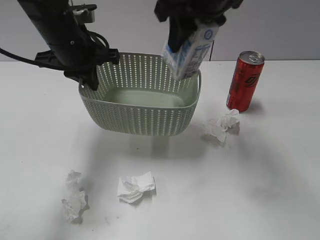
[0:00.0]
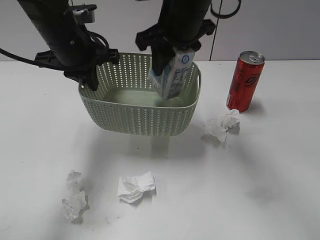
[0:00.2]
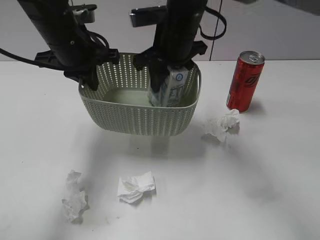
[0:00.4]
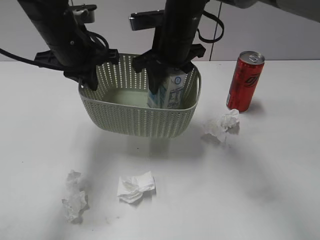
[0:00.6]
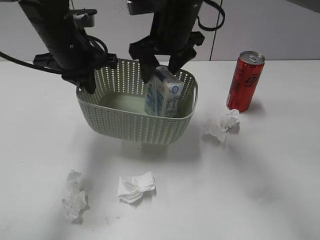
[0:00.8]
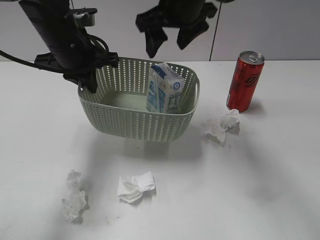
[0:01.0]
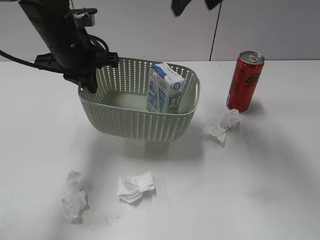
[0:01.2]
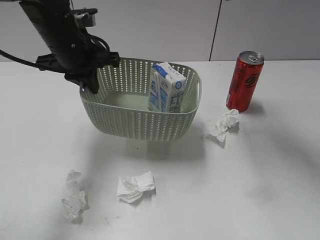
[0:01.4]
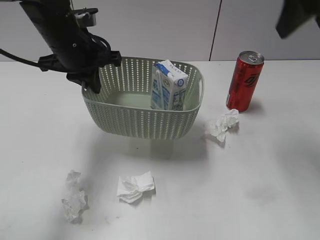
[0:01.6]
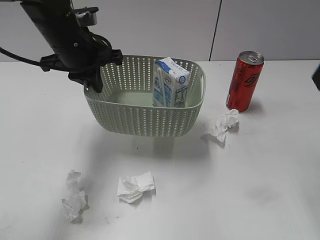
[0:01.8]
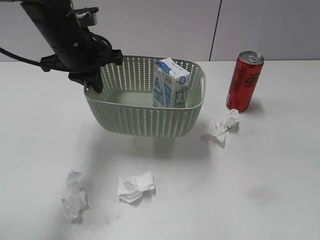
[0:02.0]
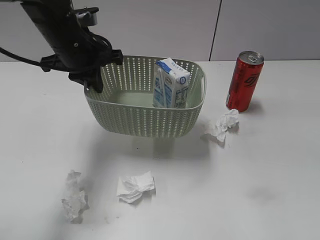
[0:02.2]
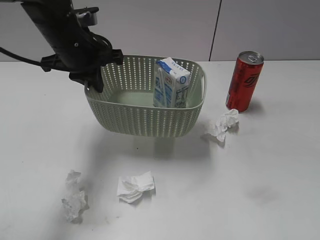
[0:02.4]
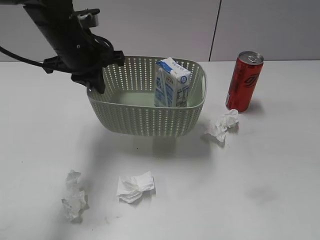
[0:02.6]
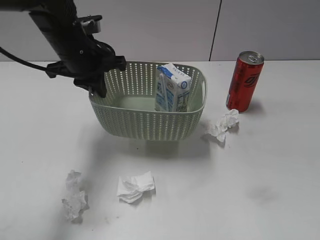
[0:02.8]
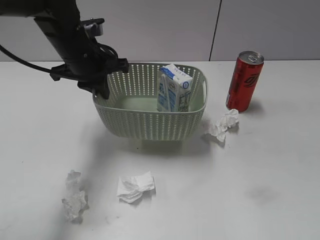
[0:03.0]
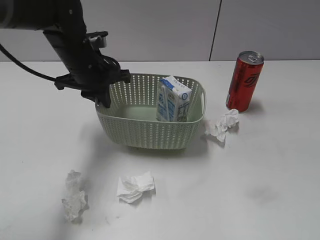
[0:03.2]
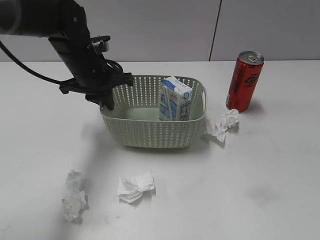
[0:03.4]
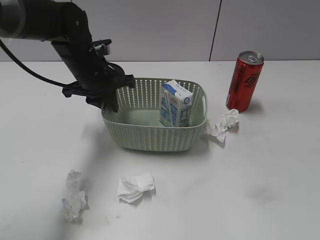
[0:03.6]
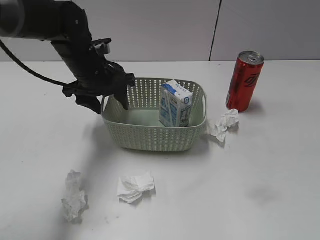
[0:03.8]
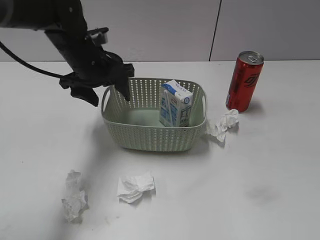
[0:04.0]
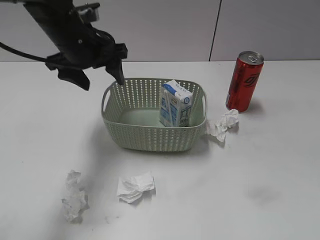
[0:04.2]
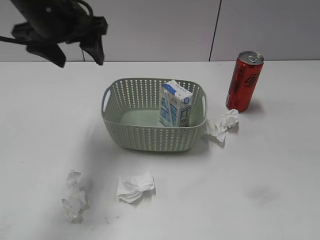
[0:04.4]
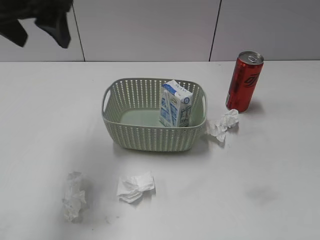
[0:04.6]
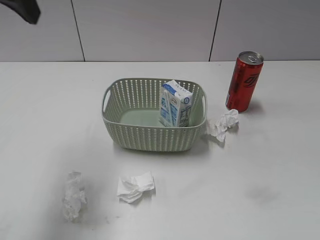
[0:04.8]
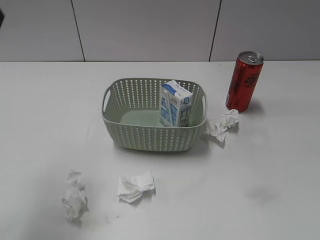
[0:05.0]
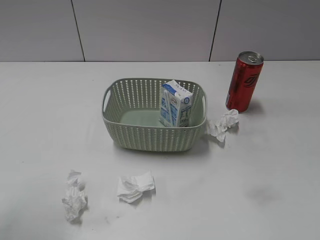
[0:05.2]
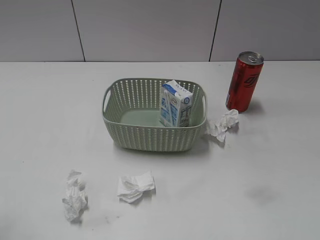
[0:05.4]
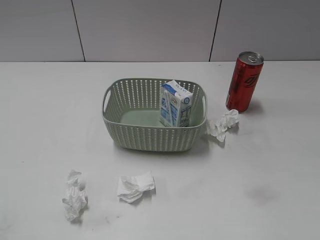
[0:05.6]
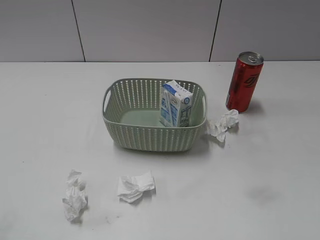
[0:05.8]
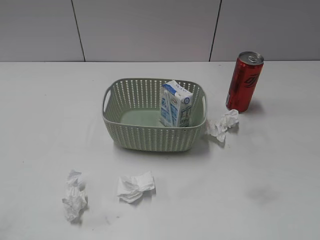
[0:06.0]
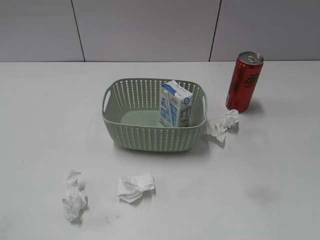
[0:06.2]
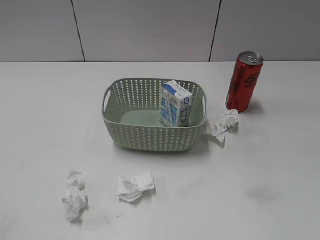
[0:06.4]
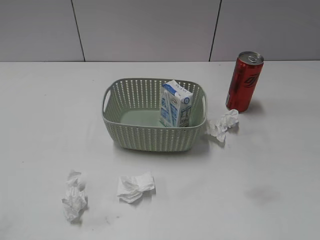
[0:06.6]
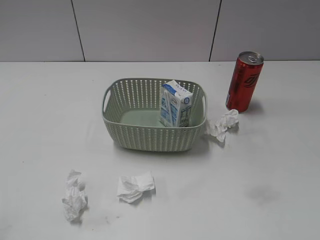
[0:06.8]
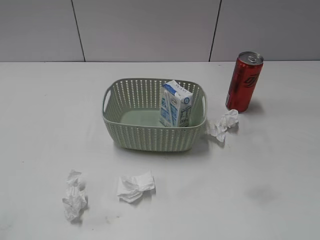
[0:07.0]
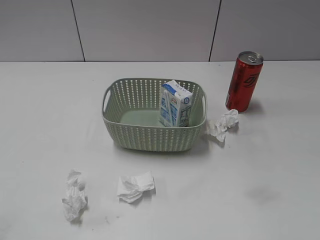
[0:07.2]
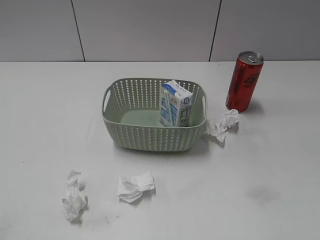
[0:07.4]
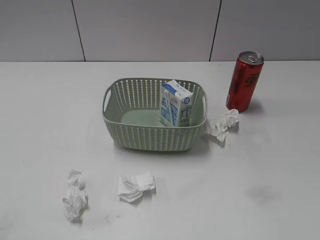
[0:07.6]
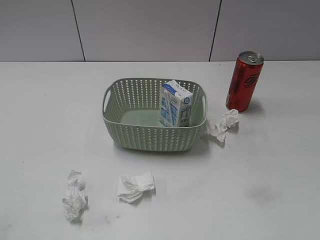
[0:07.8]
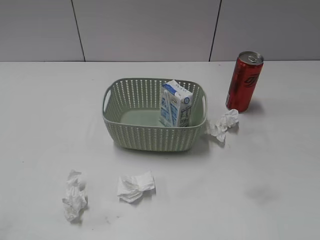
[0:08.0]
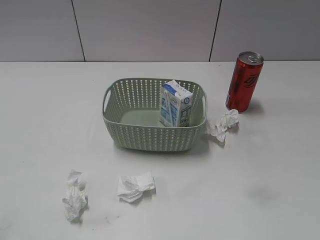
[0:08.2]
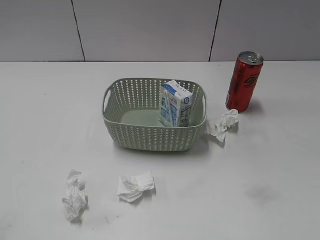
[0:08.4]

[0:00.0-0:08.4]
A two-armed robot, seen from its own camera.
Step, 1.2 to 4.2 s: Place the basket on the table with left gripper.
0.0 to 1.4 s: The right gripper shifts roughly 15 cm to the right and upward, and opens its fingers.
1.4 to 2.8 s: The right gripper heads backward and to the right, covering roughly 35 cm.
2.8 to 4.2 s: The left gripper travels downward and back again, roughly 5 cm each way, and opens its fingers.
4.2 to 5.6 s: The left gripper shifts some 35 cm backward and to the left.

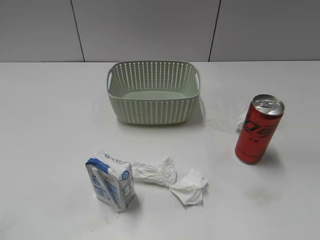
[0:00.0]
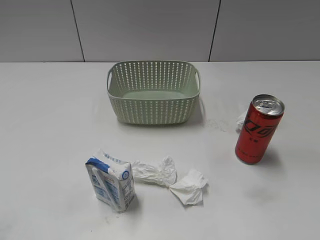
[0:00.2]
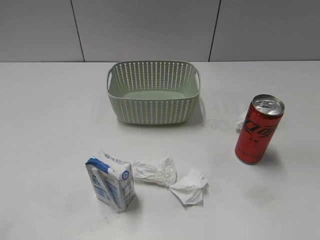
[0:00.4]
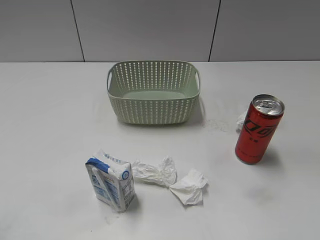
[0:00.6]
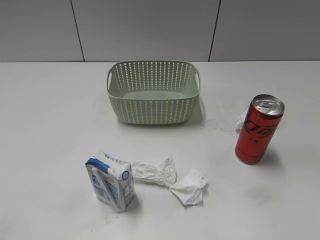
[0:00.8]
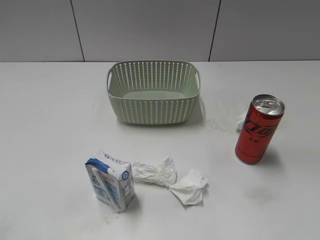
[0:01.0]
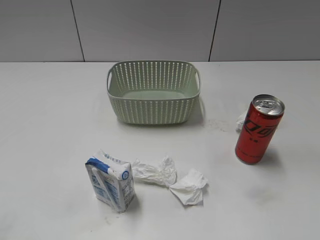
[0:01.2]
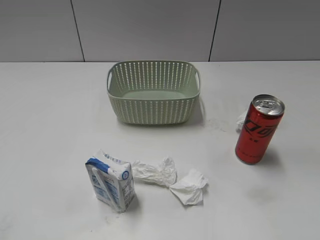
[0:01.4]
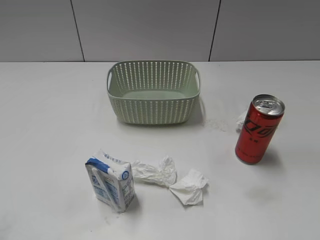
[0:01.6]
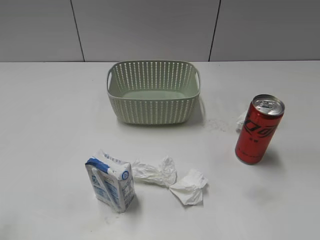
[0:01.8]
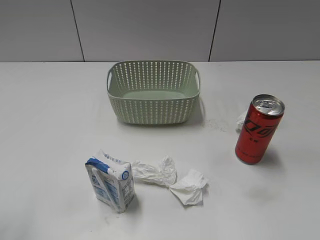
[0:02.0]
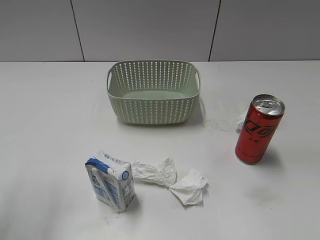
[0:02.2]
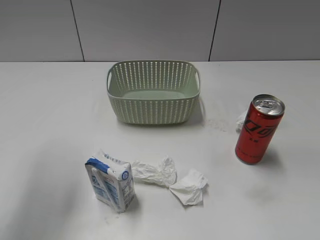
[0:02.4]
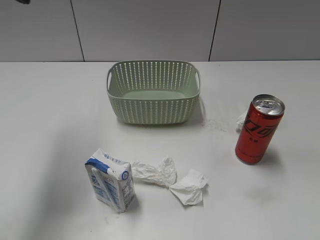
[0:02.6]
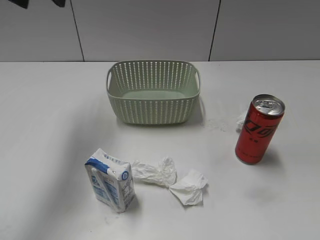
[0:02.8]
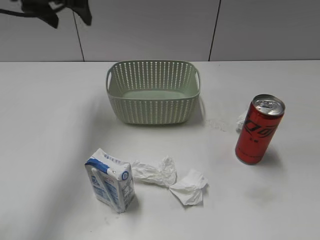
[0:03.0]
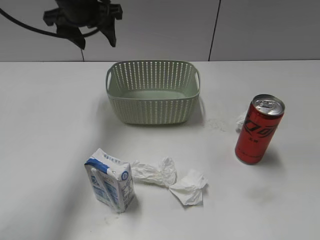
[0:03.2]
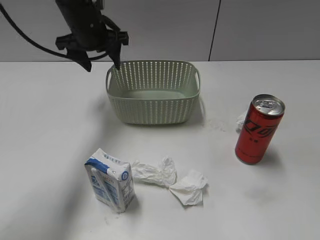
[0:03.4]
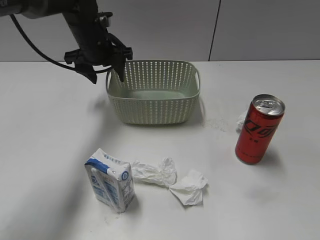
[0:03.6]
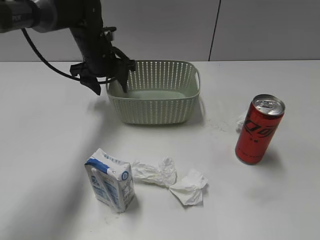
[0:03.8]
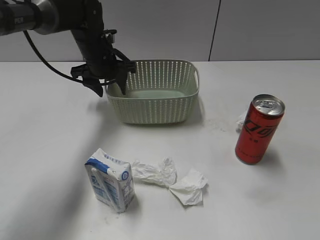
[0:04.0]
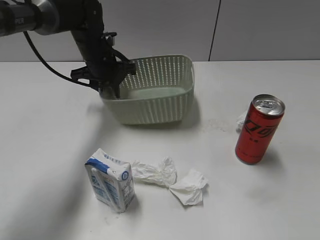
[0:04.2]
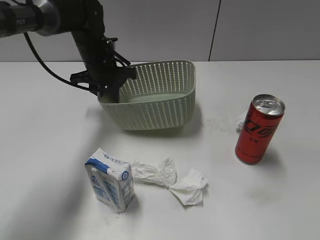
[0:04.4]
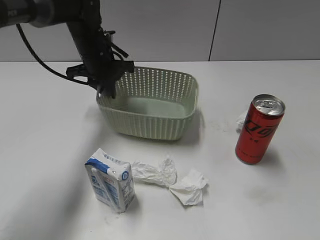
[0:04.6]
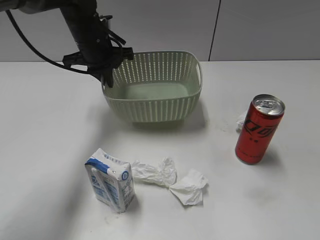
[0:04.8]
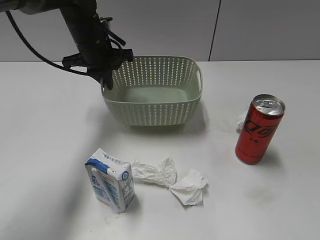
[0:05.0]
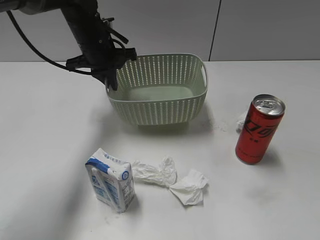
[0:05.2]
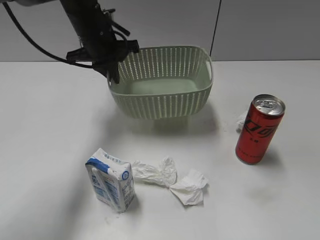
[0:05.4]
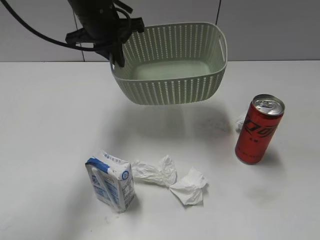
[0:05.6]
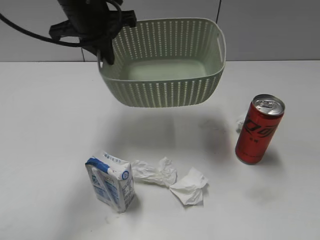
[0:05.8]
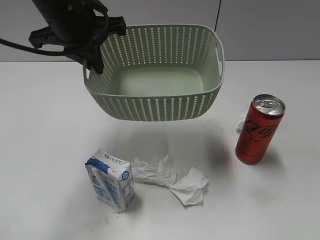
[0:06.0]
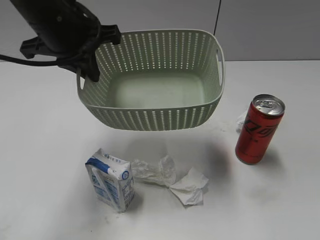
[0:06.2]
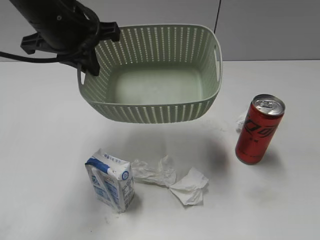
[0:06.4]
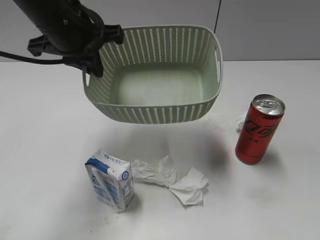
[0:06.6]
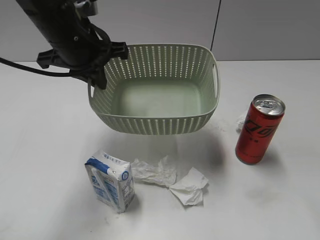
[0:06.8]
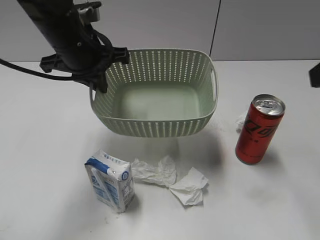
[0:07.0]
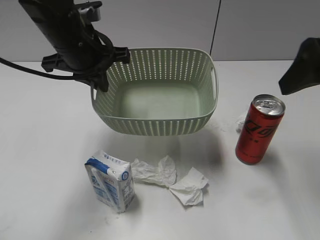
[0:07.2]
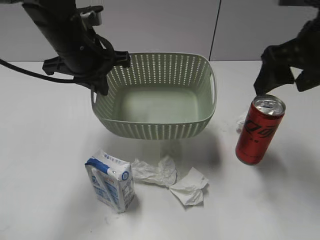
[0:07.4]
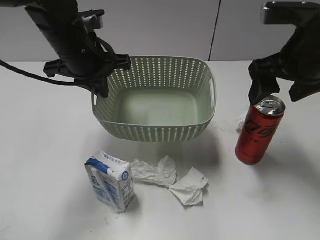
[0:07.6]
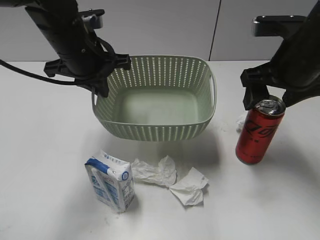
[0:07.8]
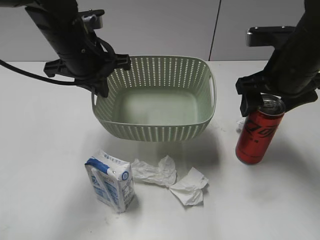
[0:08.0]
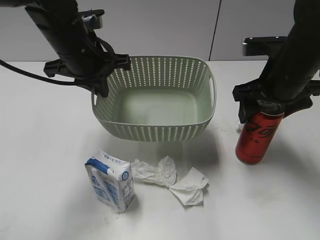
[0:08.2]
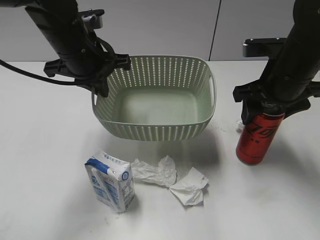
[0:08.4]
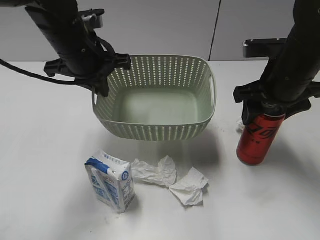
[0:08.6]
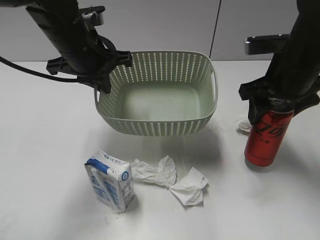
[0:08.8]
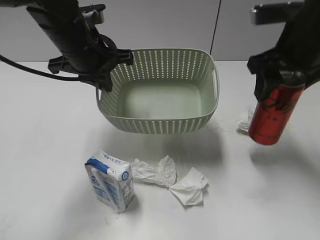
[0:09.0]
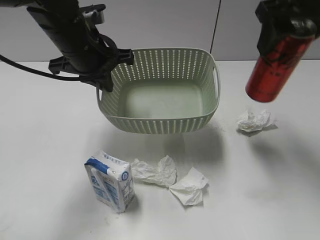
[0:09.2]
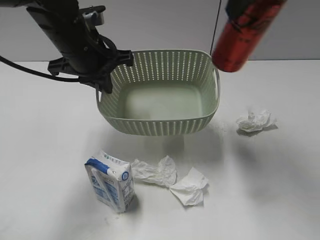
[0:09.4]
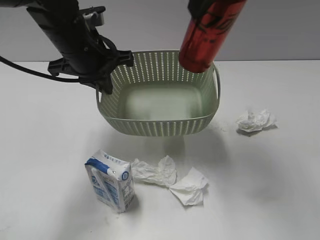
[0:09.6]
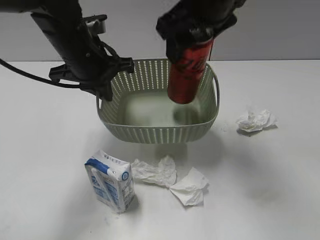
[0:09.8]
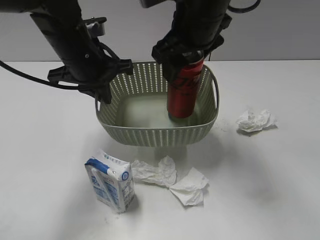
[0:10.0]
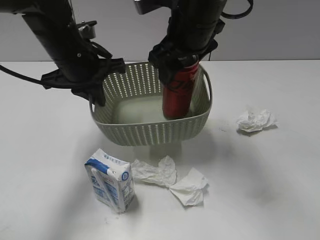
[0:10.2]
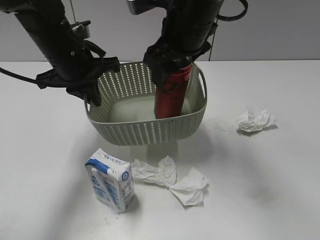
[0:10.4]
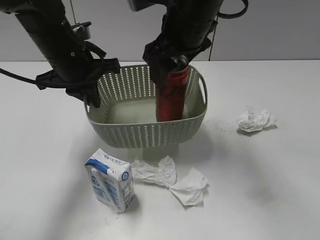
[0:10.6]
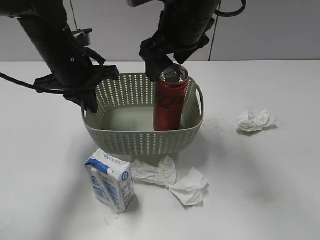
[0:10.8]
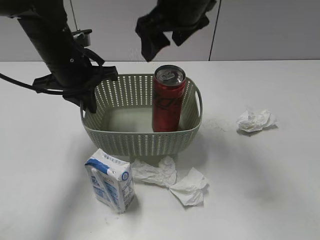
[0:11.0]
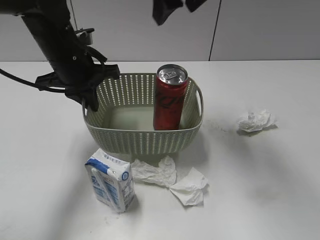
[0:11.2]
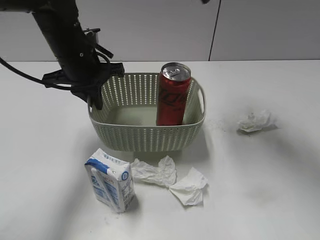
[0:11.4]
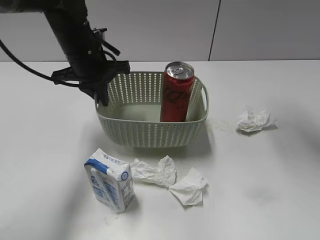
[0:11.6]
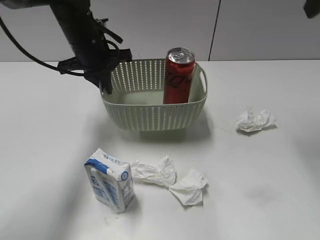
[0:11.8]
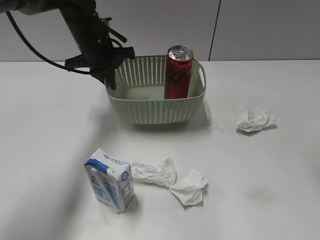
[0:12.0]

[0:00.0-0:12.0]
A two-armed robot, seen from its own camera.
Step, 2.6 to 4.6 s: Grasp the basket with left gripper.
Step, 4.8 to 6.8 s: Lift the basket with left gripper.
Step, 7.0 to 8.6 s: Grasp the cola can with right gripper.
Step, 8.8 to 10.6 s: Place the cola can in the basket with right gripper.
1.6 to 3.0 s: The left gripper goes about 40 cm forward.
3.0 to 4.4 s: The left gripper moves downward, approximately 15 cm, and closes up.
4.4 to 6.0 s: The left gripper heads upward and backward, covering some 20 cm.
6.0 to 7.6 s: The left gripper shifts about 5 cm downward. Meanwhile the right gripper goes roughly 30 cm forward, and opens up.
7.6 to 9.0 s: The right gripper goes downward and returns, roughly 5 cm each way, and closes its fingers.
9.0 to 10.4 s: The right gripper heads to the left, covering some 15 cm.
10.4 to 12.0 s: The right gripper travels to the right, upward and backward by about 25 cm, and opens its fingers, while the left gripper travels forward by approximately 10 cm.

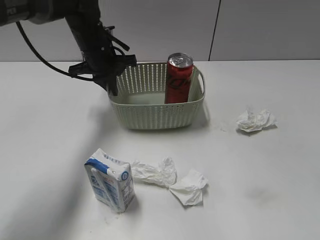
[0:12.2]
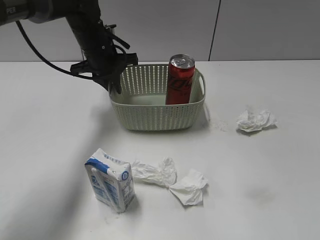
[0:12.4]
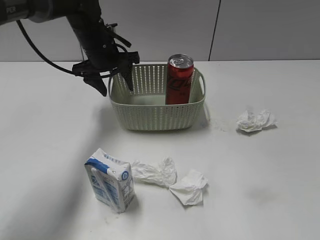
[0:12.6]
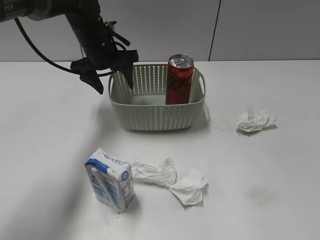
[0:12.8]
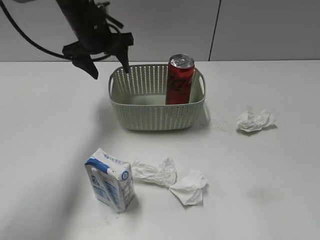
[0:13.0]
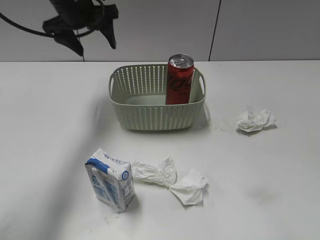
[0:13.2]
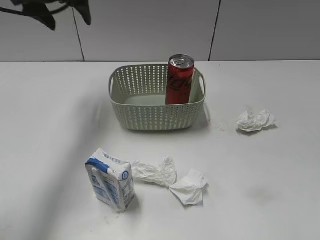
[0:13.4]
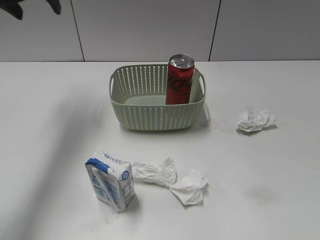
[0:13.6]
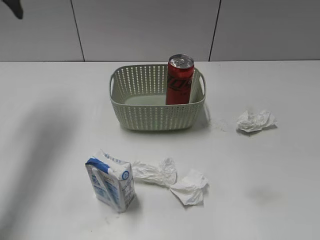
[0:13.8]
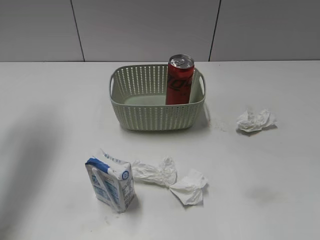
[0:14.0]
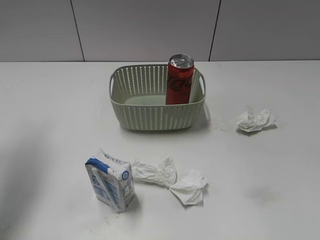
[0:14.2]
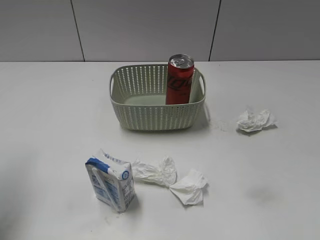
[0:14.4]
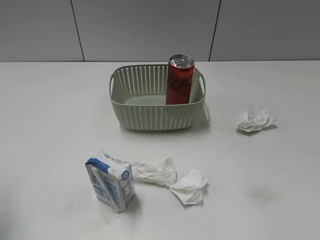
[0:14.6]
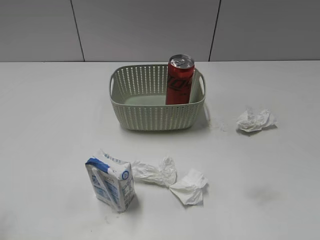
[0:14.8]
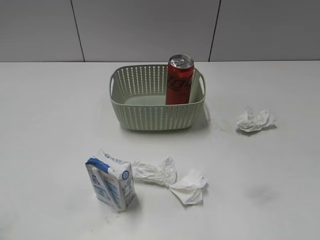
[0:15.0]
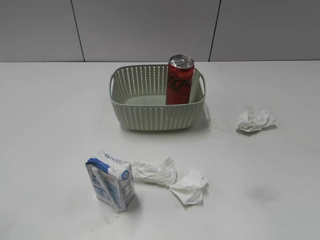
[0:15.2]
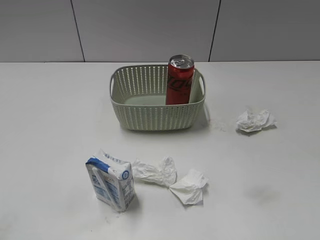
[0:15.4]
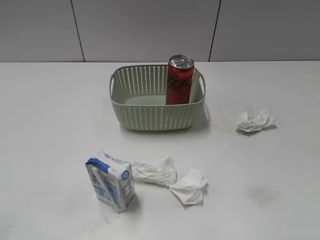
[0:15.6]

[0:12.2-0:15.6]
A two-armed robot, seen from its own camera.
12.2 to 13.8 s: The right gripper moves backward and downward, roughly 20 cm. Meanwhile the left gripper moves upward and to the left, roughly 25 cm, and opens.
13.8 to 15.6 s: The left gripper goes about 40 cm backward.
